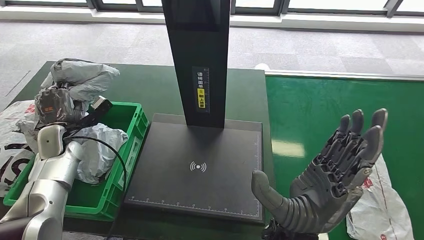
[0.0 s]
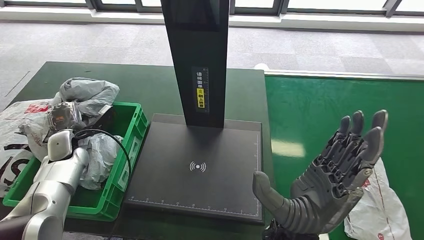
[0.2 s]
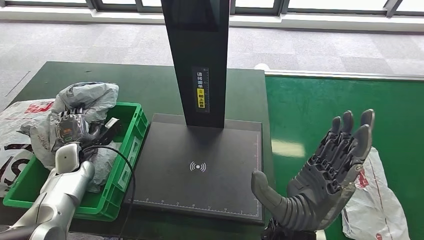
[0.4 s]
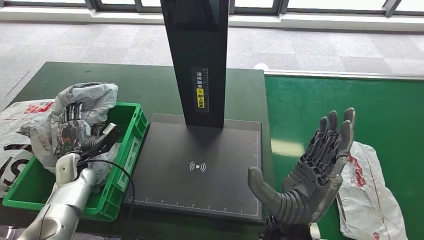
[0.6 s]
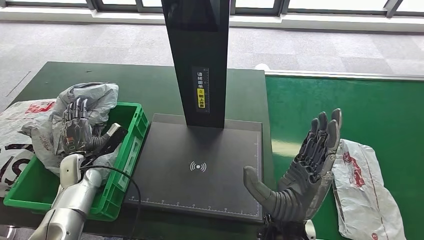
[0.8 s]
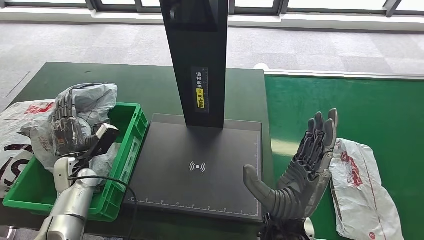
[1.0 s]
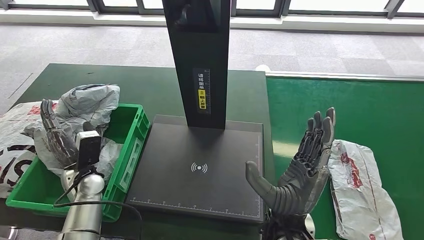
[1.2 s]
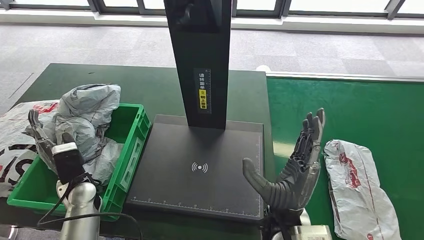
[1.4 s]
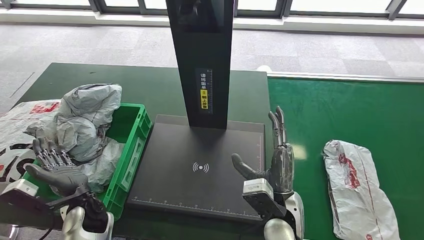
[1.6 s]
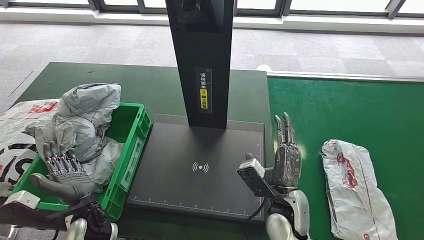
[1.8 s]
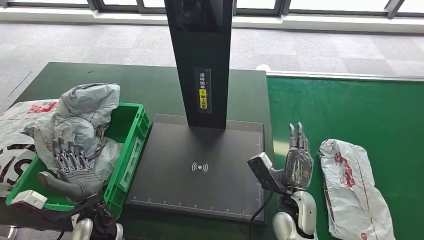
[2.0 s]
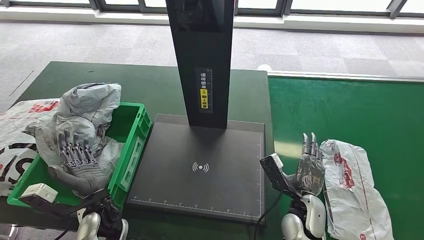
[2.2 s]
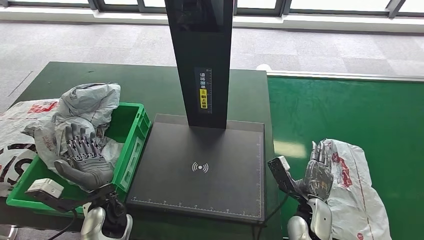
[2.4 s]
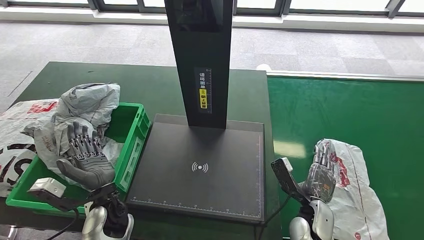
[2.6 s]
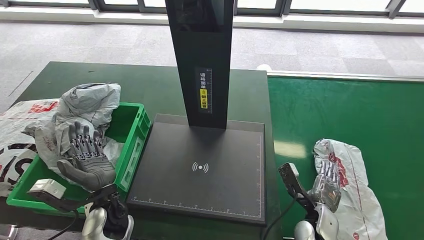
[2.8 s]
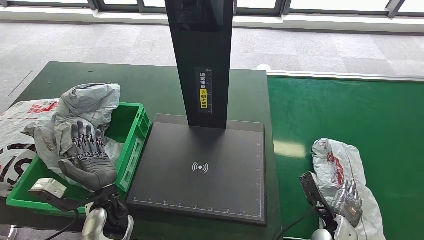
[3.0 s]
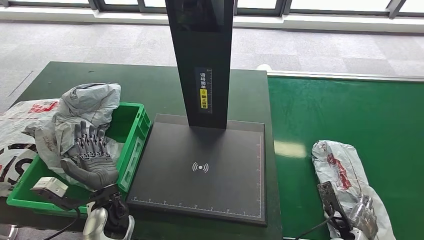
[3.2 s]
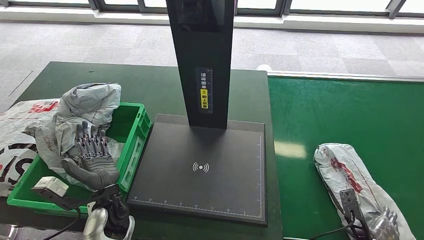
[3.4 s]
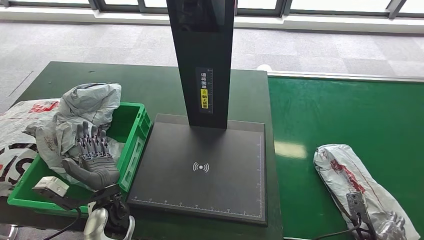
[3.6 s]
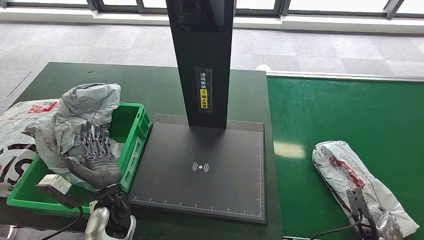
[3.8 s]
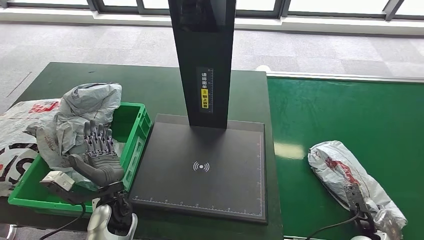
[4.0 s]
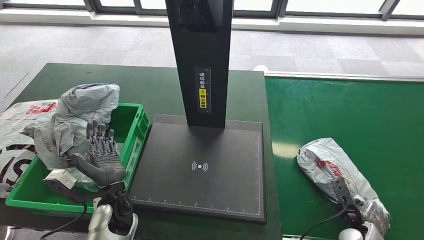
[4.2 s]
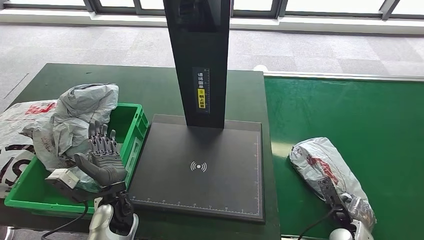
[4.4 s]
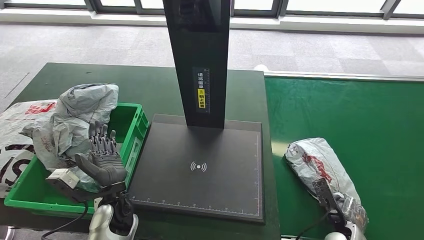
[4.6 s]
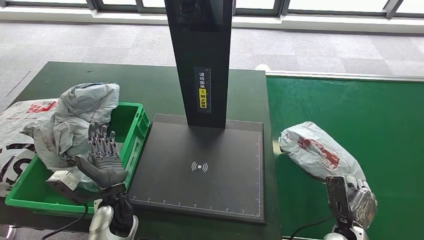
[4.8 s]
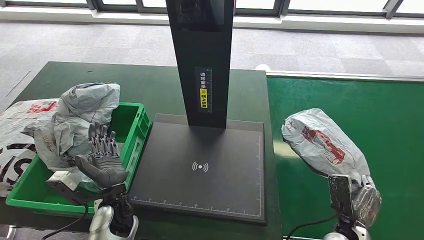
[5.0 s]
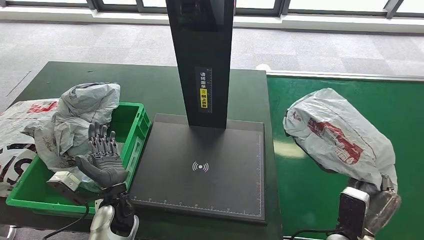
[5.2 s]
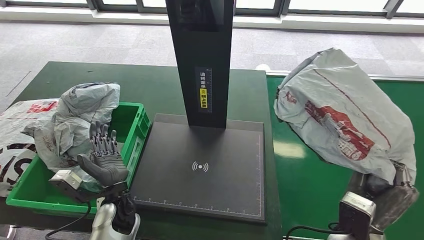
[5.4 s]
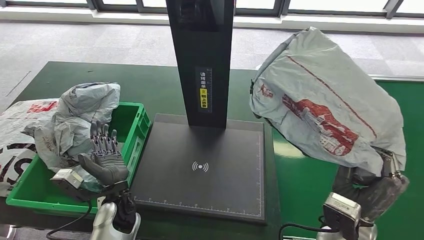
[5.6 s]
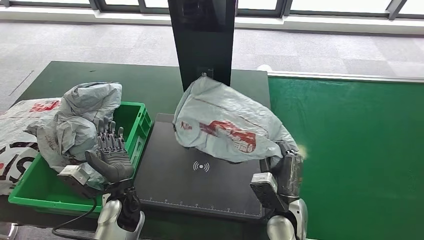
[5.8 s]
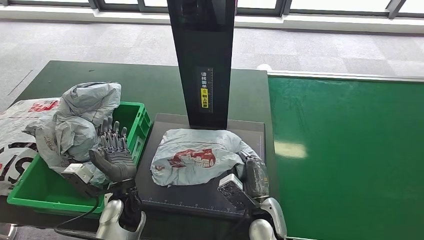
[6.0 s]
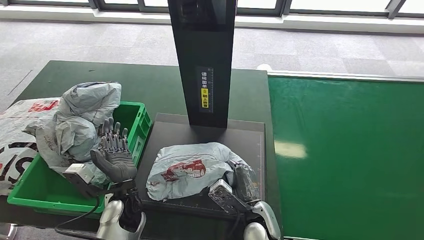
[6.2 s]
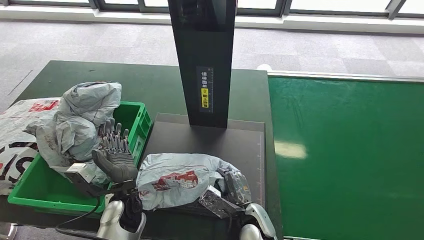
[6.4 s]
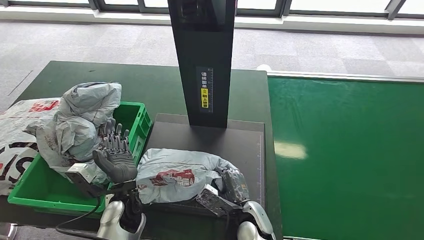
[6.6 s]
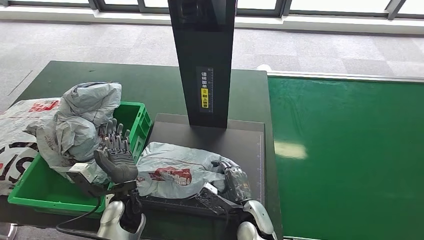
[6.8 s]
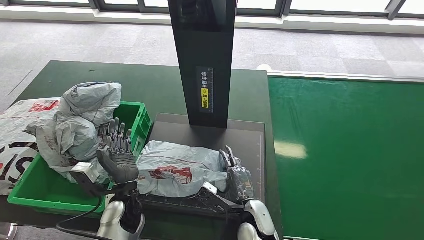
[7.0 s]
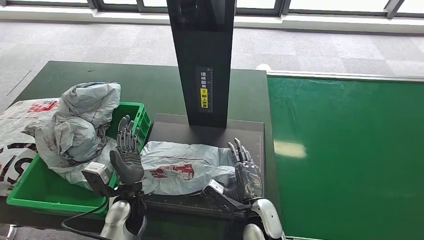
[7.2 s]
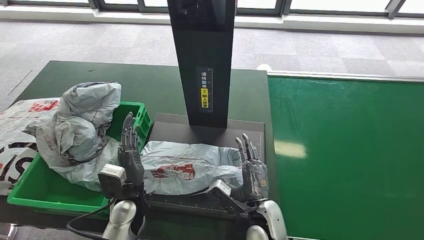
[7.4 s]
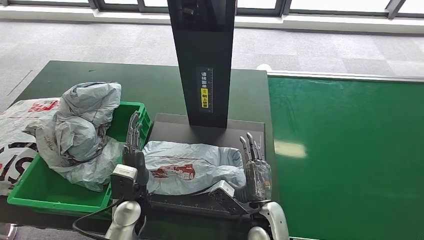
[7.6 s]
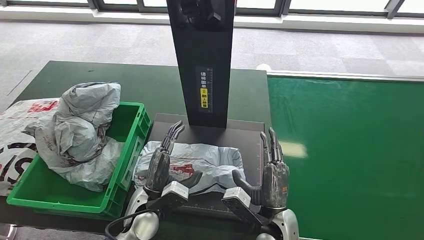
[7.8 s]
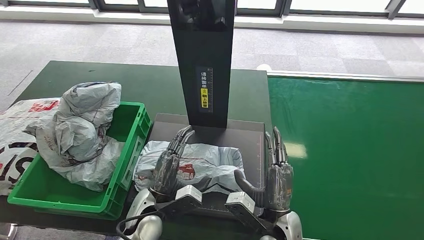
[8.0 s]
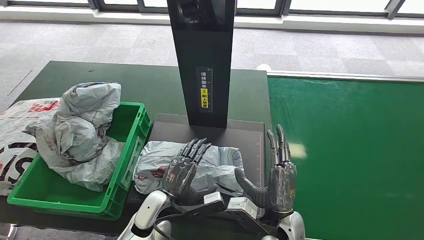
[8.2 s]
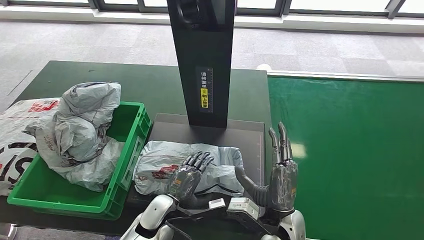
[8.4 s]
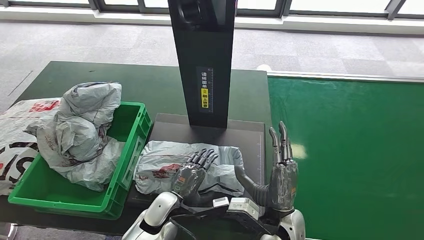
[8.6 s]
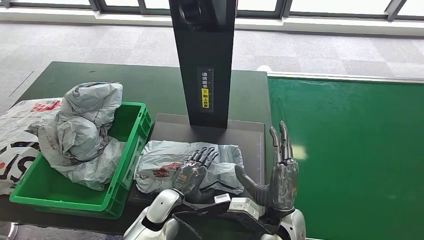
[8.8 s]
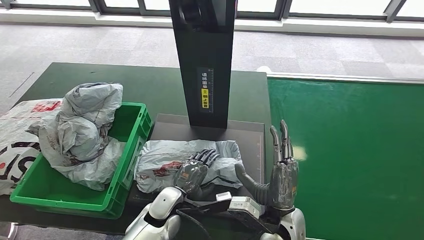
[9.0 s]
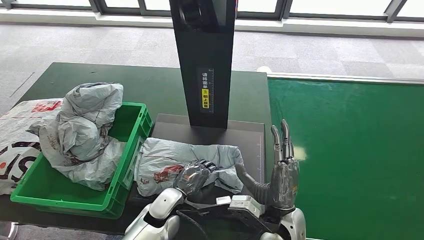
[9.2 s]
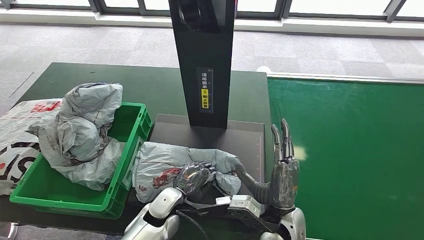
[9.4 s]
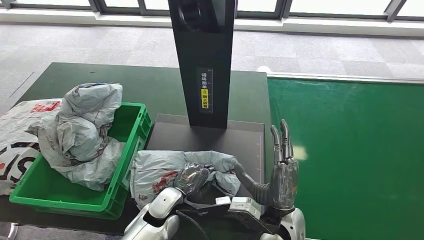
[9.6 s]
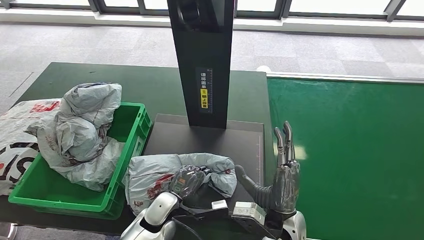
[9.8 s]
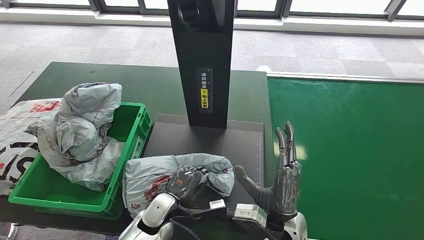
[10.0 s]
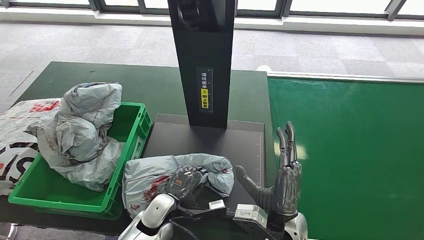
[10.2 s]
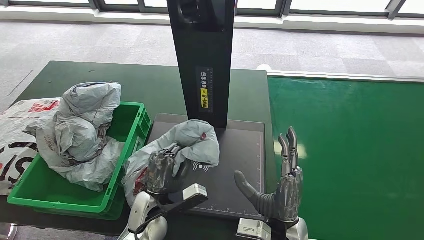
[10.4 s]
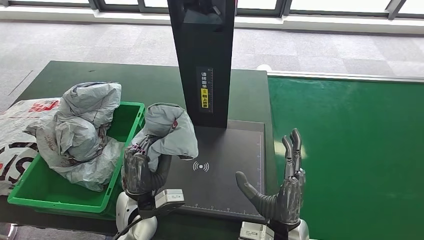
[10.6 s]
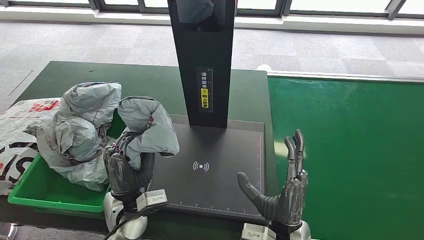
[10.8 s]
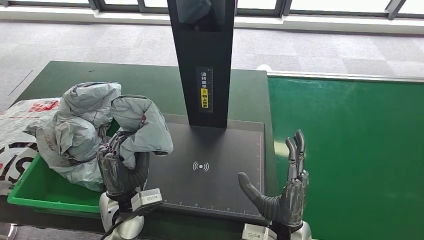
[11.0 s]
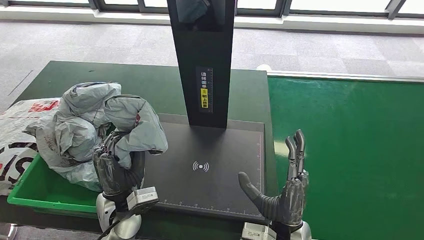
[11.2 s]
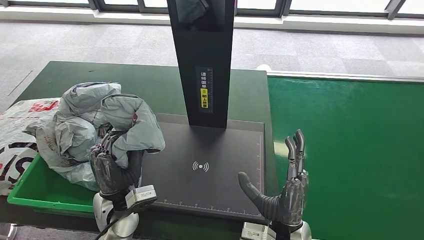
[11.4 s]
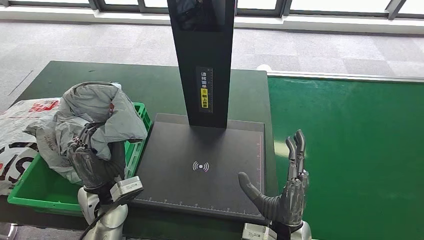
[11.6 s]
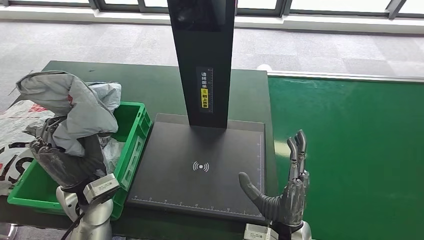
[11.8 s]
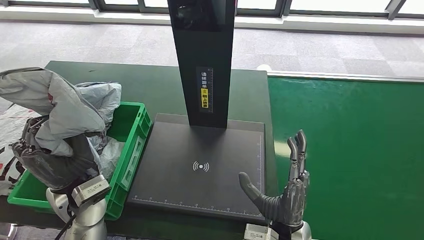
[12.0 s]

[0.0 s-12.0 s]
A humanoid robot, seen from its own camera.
Step, 0.0 to 2.4 s: Place the parcel into the delivery box.
Step, 2.6 to 5.8 s: Pick up the parcel from the conveyor belt.
Step, 6.8 to 8.8 s: Place the parcel onto the inbound machine.
Step, 9.0 to 11.6 s: Pick up the parcel from the inbound machine.
10.4 to 12.0 s: The left hand moves upward and to the left, roughly 15 cm.

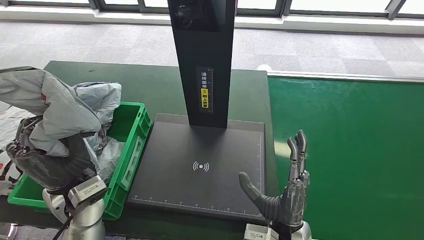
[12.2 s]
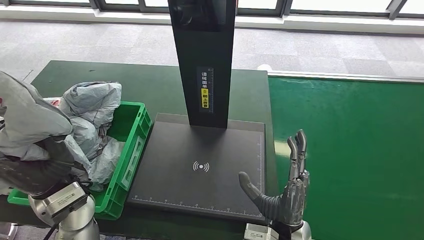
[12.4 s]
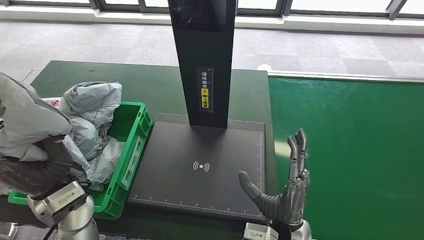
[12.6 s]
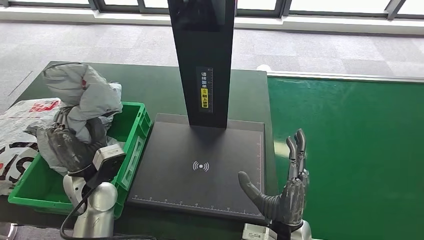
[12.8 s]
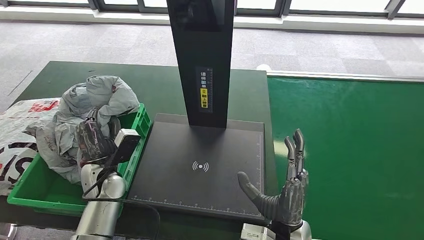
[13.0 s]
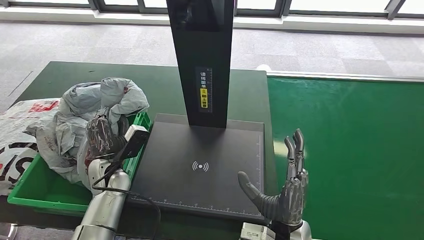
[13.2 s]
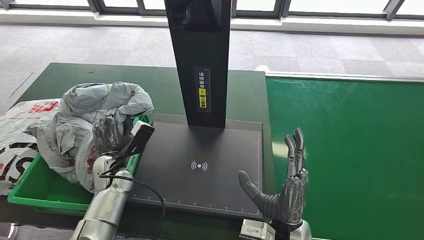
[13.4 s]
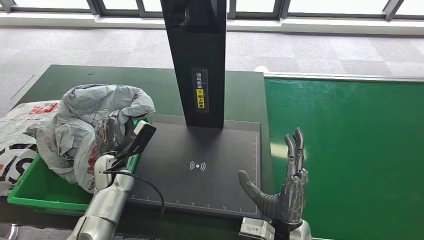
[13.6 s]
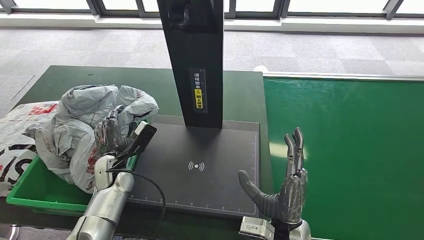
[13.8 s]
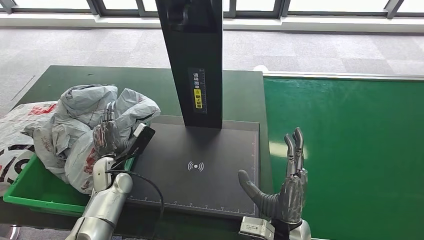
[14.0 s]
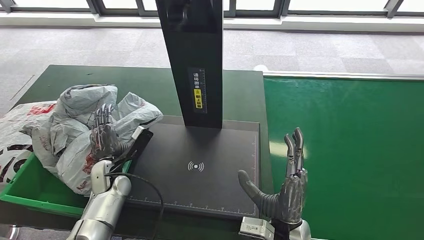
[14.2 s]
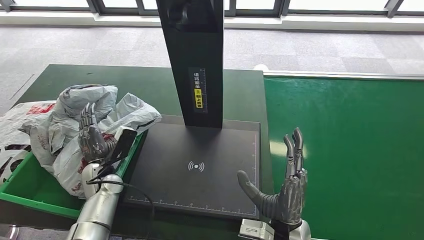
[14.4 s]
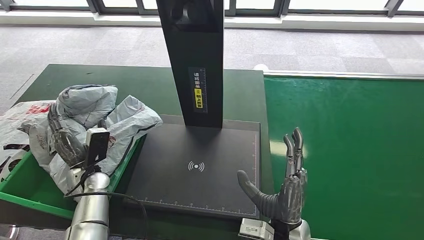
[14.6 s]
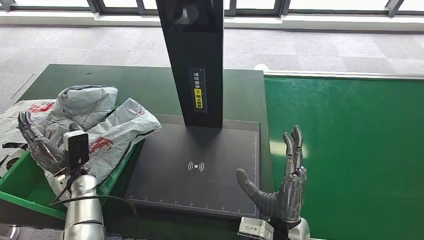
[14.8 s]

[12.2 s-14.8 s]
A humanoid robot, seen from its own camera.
Step, 12.2 to 14.6 s: Place the parcel into the delivery box.
